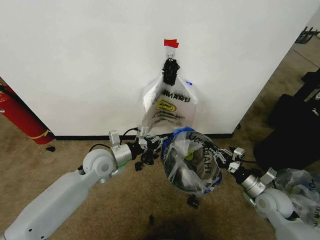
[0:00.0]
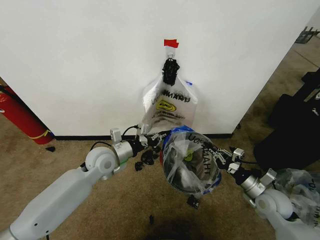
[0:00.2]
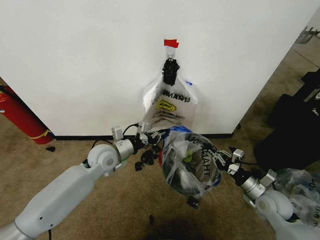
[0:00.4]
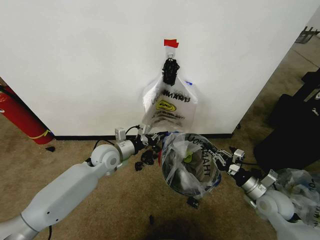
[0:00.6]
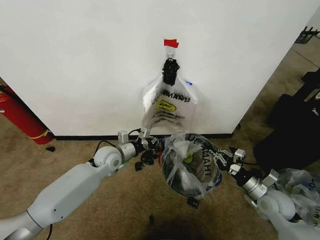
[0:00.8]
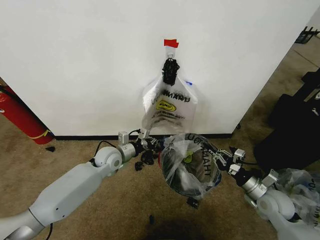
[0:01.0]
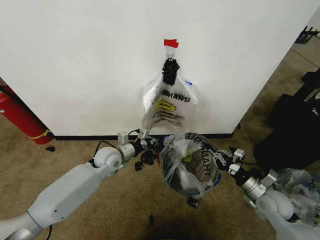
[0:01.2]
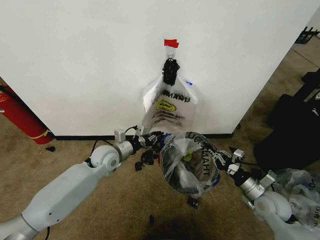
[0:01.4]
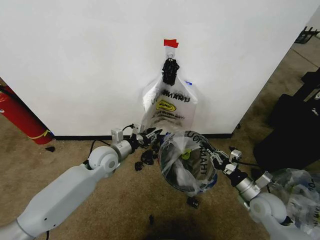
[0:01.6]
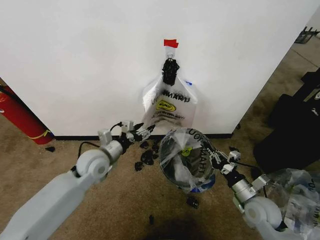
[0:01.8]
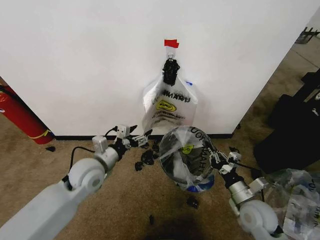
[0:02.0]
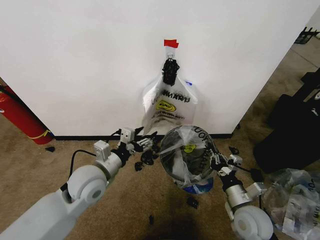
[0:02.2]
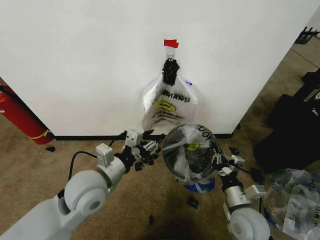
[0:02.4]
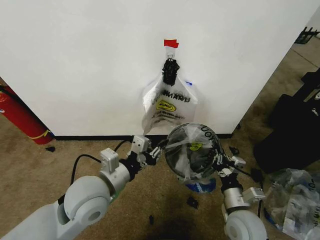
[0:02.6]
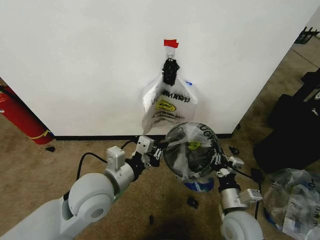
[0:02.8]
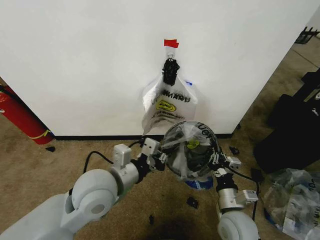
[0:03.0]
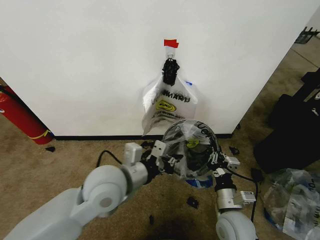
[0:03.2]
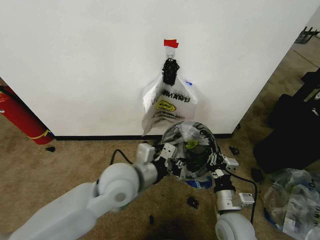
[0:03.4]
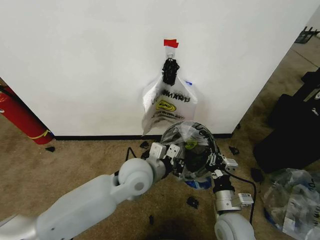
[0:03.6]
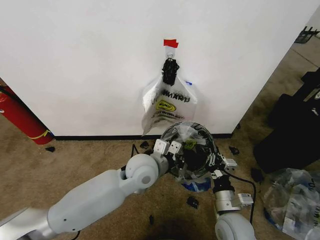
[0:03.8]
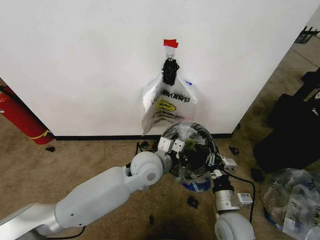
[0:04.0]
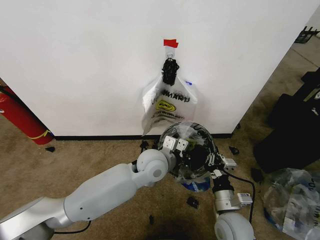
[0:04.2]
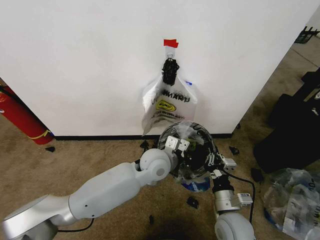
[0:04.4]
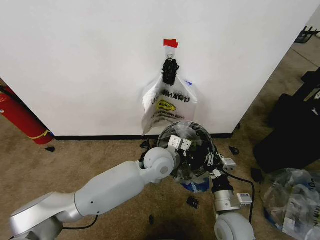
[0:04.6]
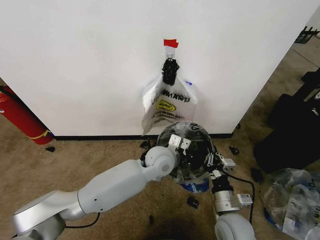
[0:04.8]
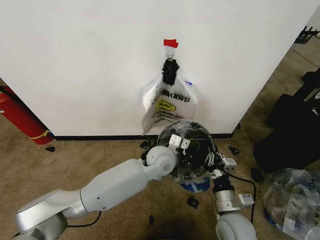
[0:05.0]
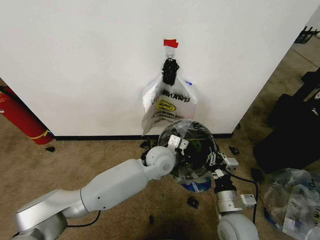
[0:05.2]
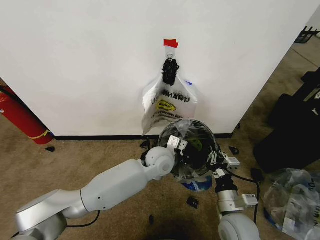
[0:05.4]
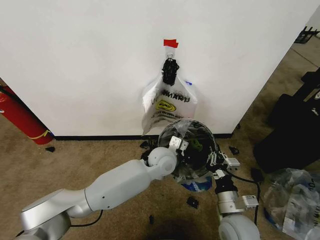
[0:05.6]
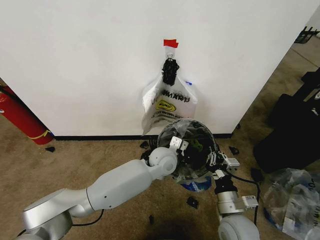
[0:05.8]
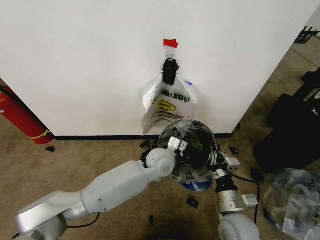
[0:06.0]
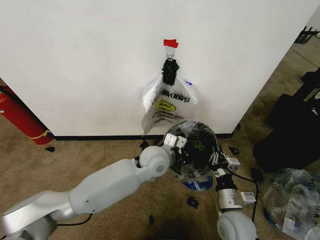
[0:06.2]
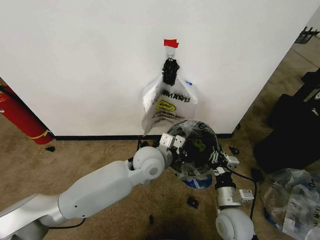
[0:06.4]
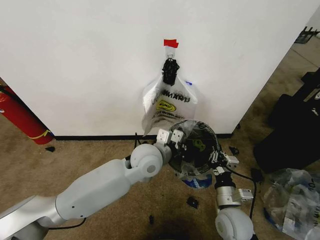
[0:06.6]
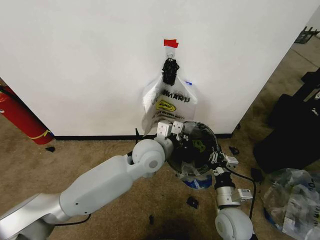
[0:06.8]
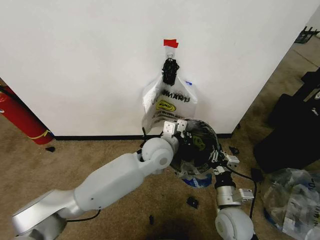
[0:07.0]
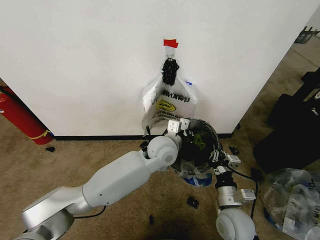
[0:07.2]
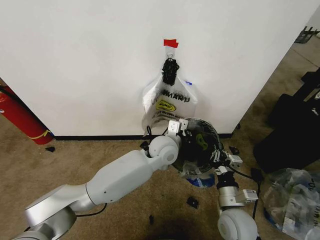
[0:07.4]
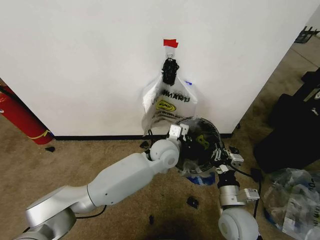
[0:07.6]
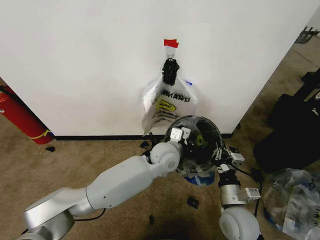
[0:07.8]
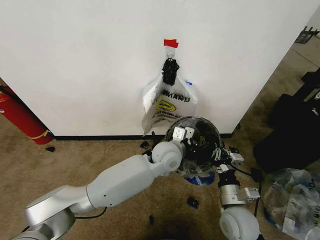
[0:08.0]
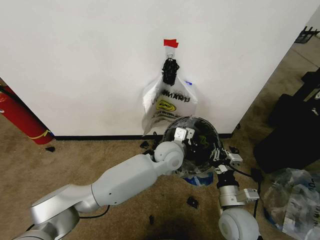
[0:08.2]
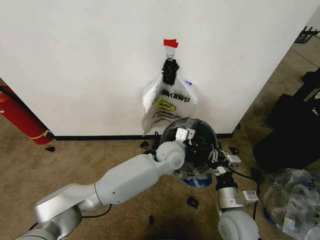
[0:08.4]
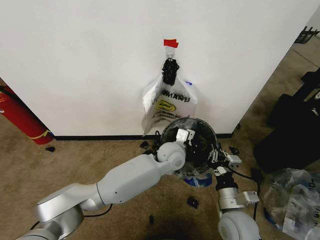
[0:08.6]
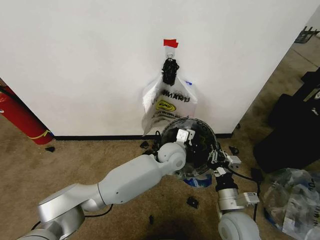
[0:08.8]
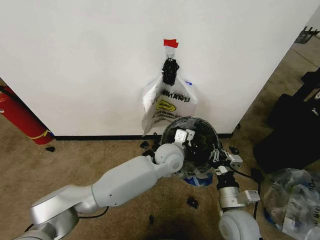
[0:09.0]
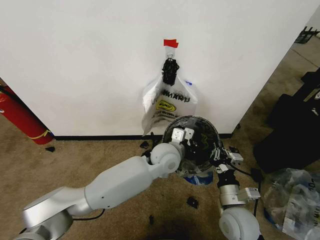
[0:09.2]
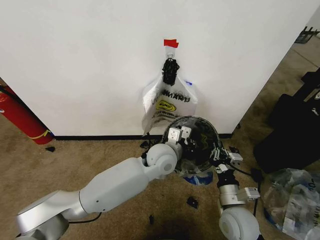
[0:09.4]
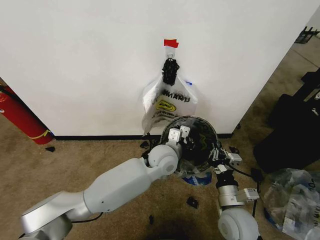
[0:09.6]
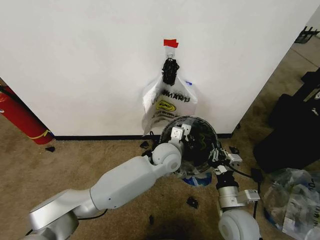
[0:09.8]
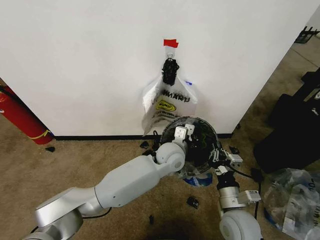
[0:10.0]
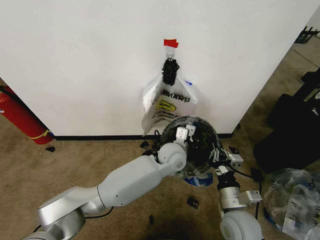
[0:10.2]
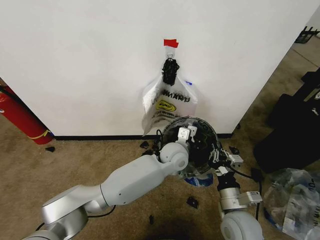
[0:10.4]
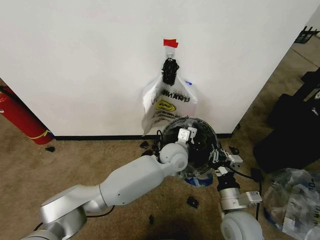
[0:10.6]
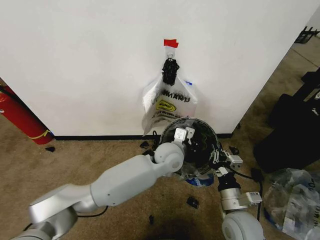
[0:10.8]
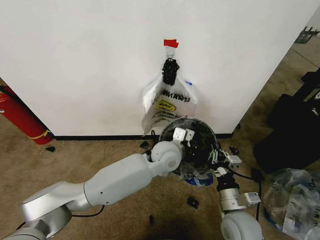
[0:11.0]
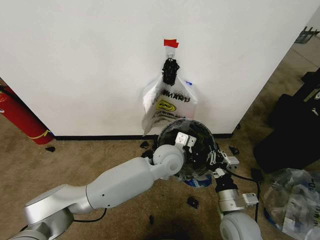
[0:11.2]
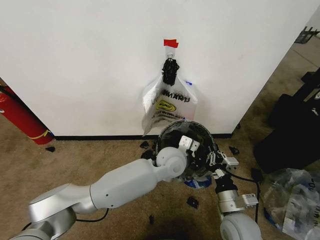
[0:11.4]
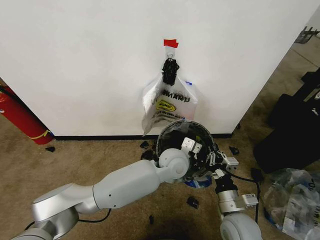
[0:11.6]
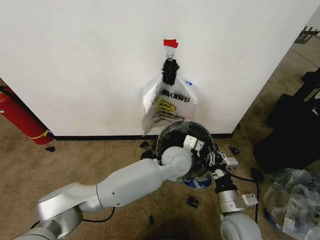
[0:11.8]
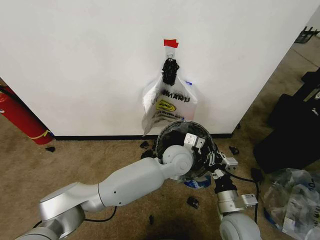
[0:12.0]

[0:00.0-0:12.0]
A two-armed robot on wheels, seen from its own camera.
Task of the whole recording: Pick up the garbage bag from the wall and place it over the trash bin.
0:00.0 to 0:01.6: The left gripper opens up.
0:01.6 to 0:03.0: The right gripper moves to the left and backward, roughly 15 cm. The left gripper travels backward and upward by some 20 cm, and closes.
0:03.0 to 0:04.4: The left gripper heads to the right, forward and downward, covering some 20 cm.
0:04.4 to 0:06.0: The grippers move only a little.
0:07.6 to 0:12.0: The grippers make only small movements.

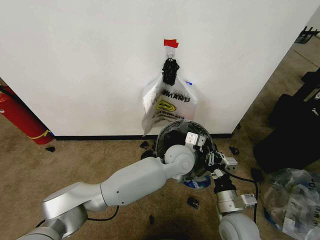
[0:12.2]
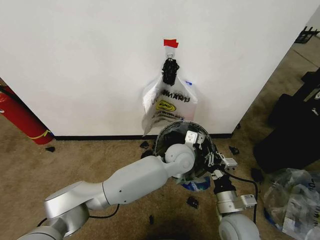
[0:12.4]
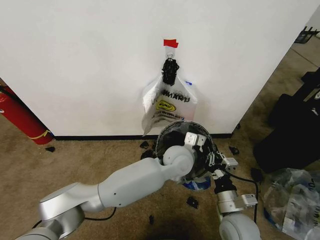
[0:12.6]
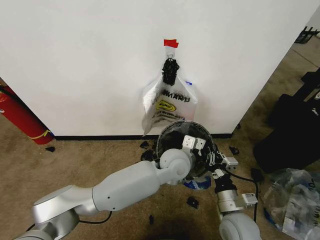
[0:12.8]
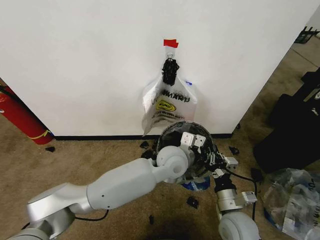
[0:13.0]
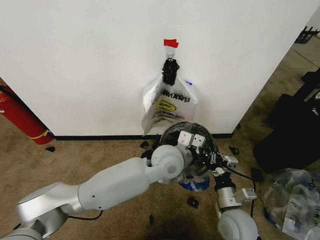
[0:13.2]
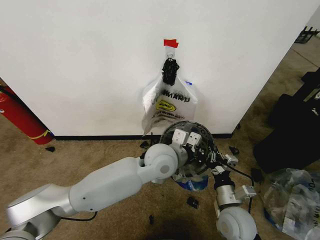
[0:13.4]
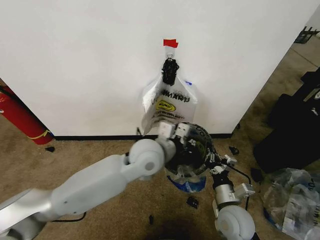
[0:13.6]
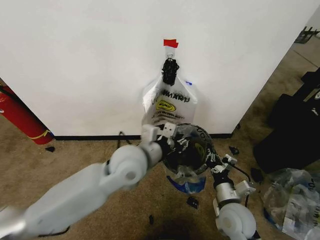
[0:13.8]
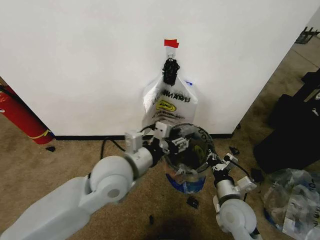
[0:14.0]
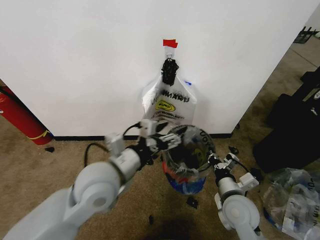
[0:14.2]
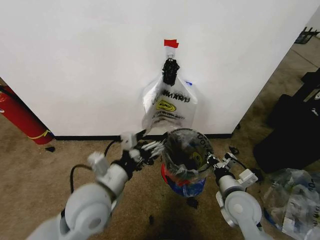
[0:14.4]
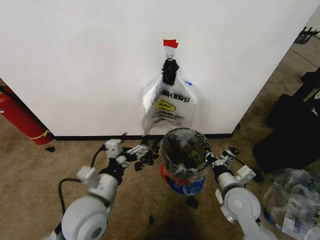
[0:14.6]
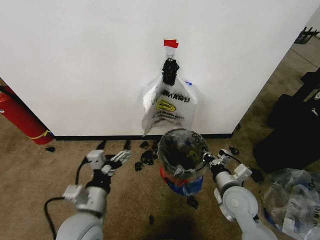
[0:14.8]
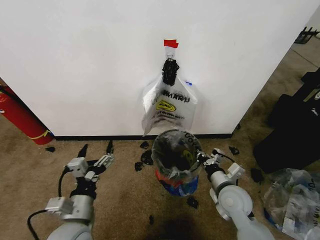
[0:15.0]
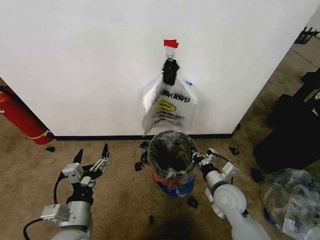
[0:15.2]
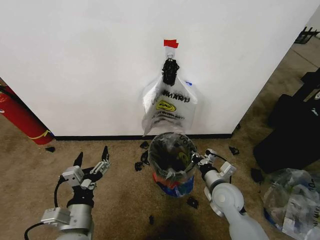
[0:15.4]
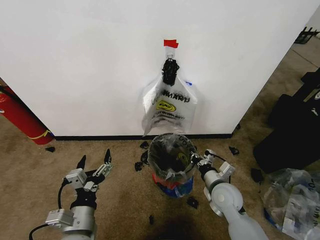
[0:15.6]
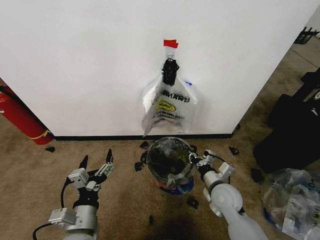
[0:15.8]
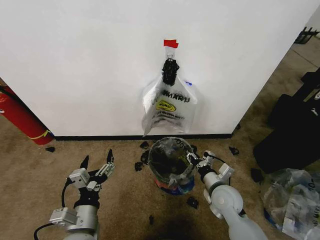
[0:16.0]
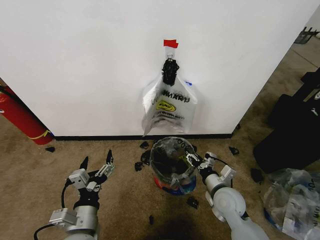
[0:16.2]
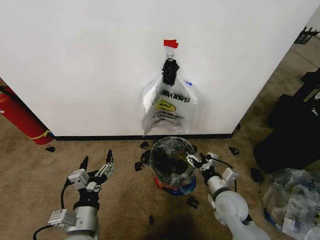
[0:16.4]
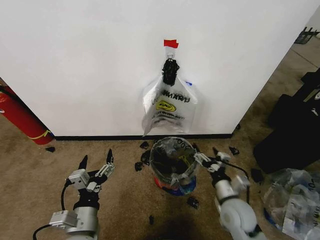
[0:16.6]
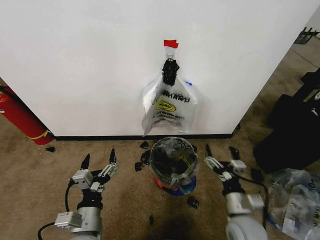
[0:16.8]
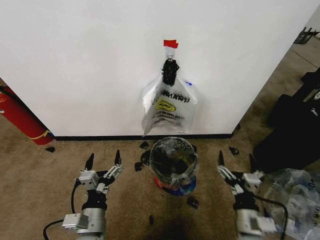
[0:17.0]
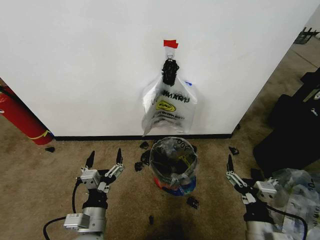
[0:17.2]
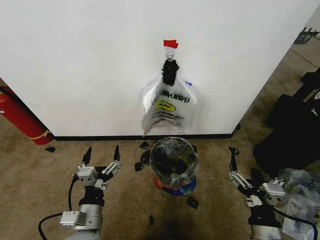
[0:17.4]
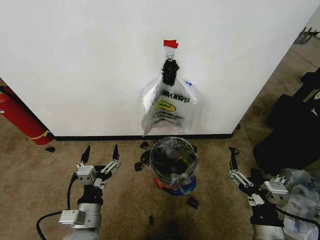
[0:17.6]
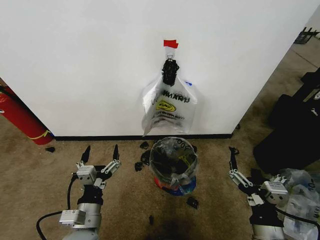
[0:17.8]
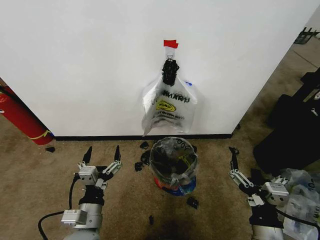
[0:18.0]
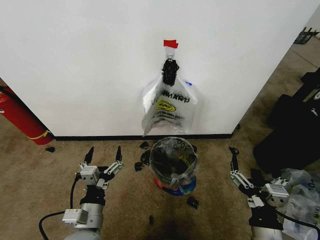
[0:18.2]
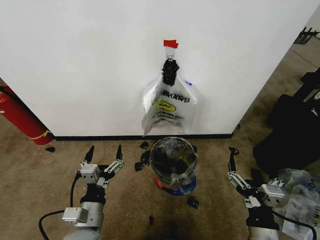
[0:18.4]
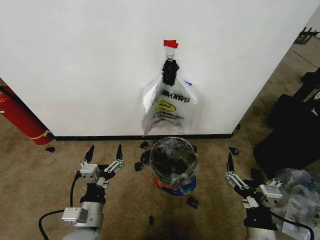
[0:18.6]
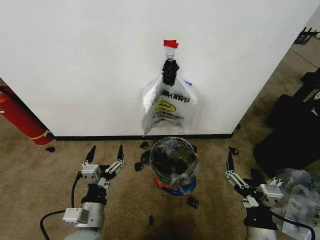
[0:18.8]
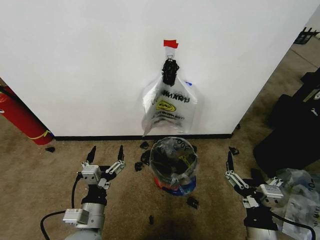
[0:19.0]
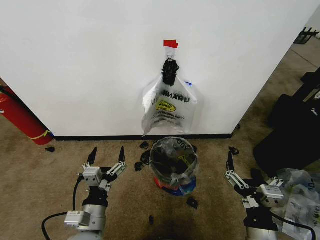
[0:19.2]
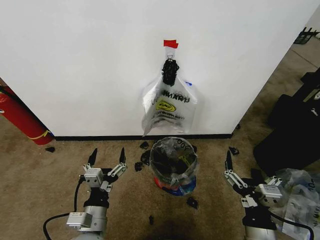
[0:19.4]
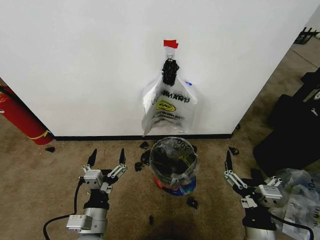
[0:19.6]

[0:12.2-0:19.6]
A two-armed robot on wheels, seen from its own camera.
Task of the whole recording: Pick up the garbage bag from the wall and place it over the trash bin.
0:12.2 to 0:13.6: The left gripper shifts roughly 10 cm to the left and upward.
0:13.6 to 0:15.2: The right gripper moves forward, roughly 5 cm, while the left gripper heads to the left, backward and downward, covering some 30 cm, and opens up.
0:15.2 to 0:16.6: The right gripper opens.
0:16.6 to 0:18.2: The right gripper shifts approximately 15 cm backward and upward.
0:18.2 to 0:19.6: The grippers make only small movements.
